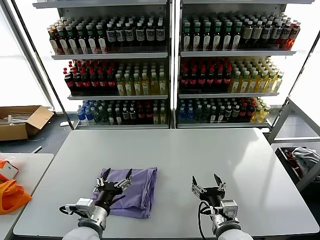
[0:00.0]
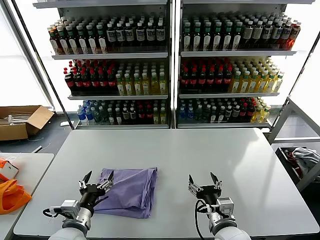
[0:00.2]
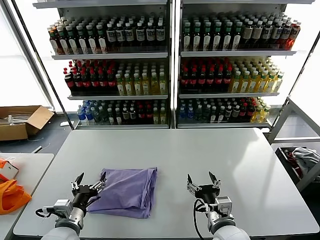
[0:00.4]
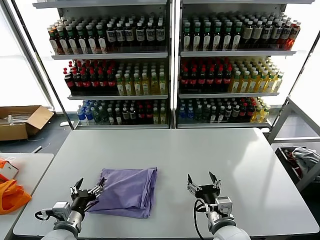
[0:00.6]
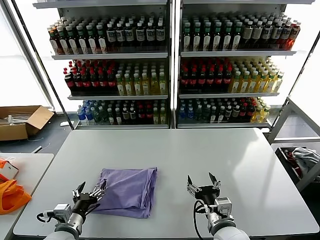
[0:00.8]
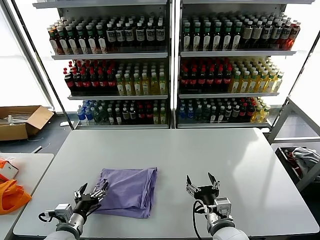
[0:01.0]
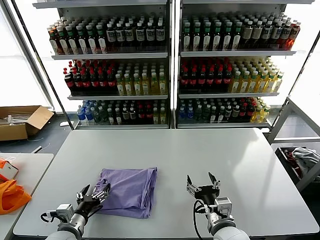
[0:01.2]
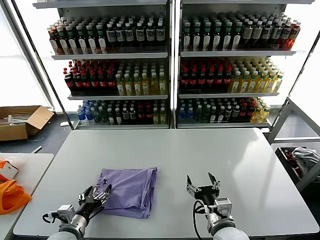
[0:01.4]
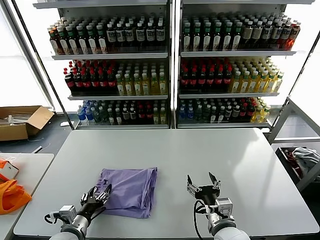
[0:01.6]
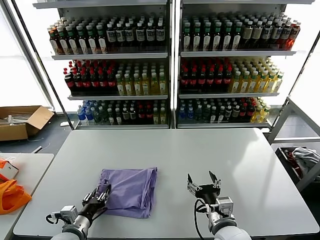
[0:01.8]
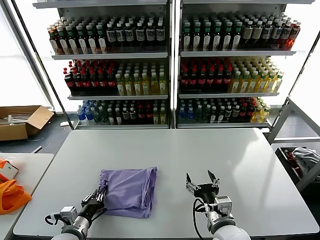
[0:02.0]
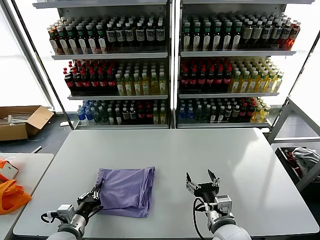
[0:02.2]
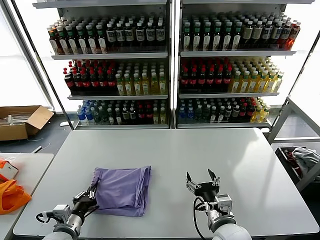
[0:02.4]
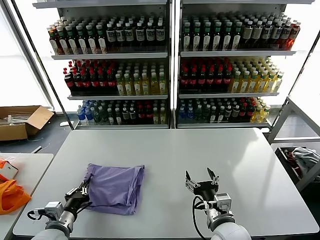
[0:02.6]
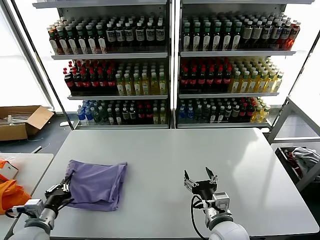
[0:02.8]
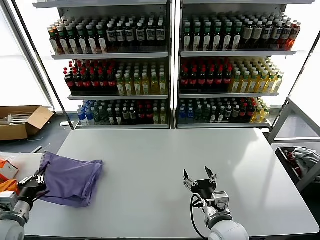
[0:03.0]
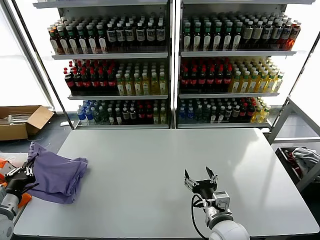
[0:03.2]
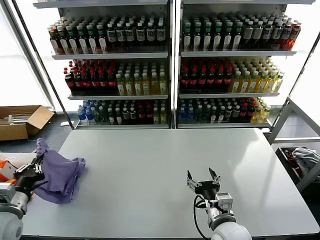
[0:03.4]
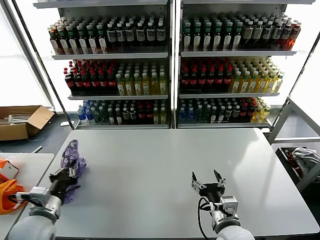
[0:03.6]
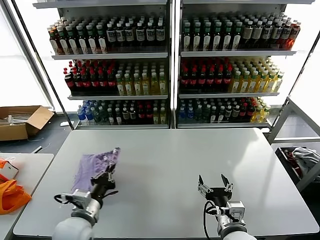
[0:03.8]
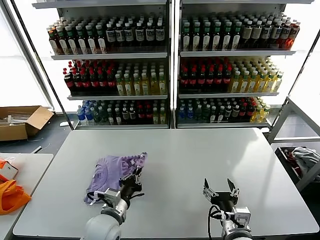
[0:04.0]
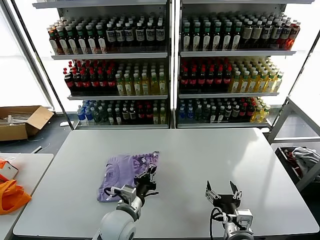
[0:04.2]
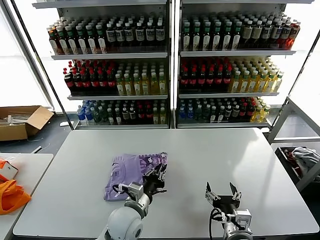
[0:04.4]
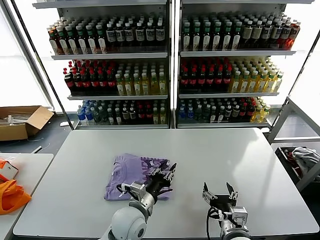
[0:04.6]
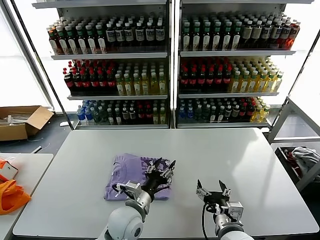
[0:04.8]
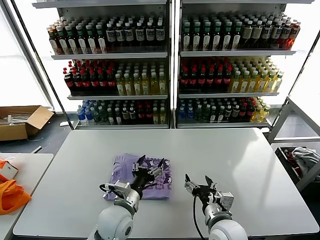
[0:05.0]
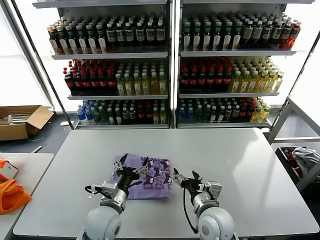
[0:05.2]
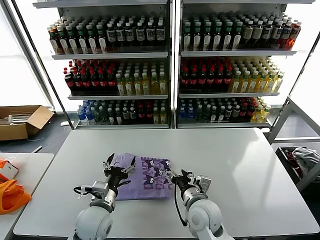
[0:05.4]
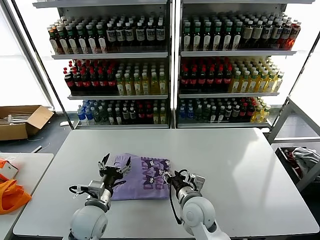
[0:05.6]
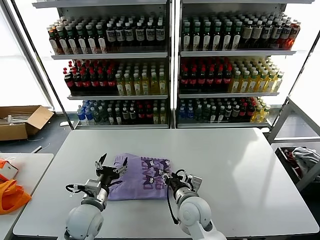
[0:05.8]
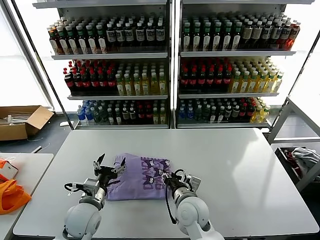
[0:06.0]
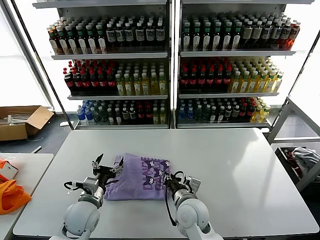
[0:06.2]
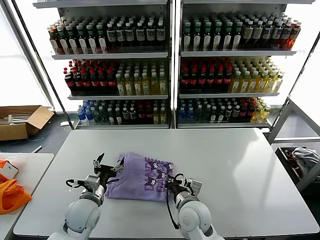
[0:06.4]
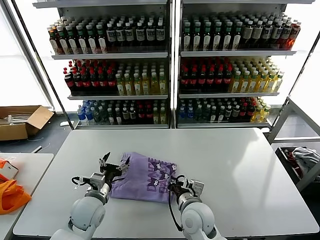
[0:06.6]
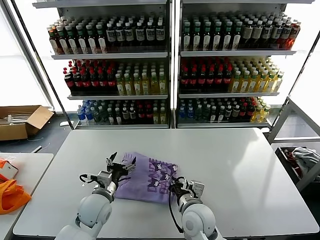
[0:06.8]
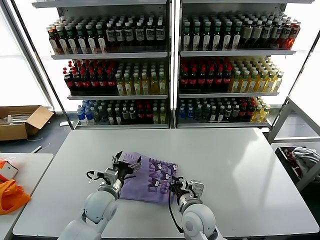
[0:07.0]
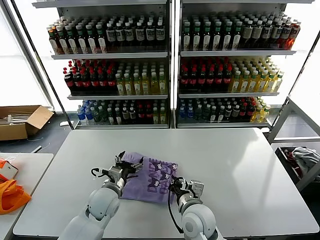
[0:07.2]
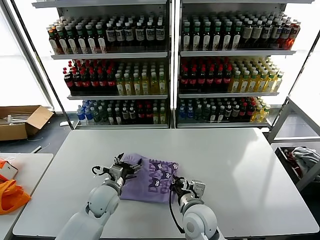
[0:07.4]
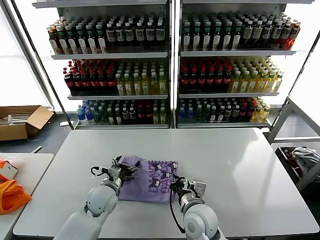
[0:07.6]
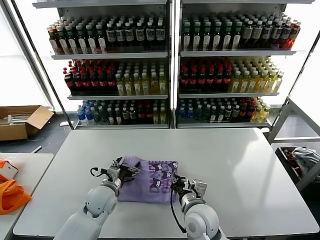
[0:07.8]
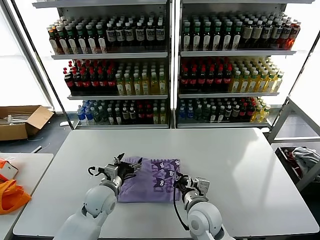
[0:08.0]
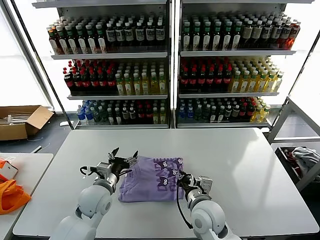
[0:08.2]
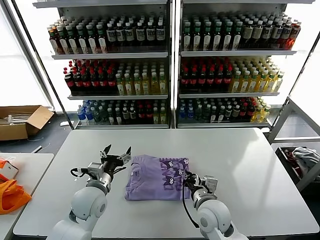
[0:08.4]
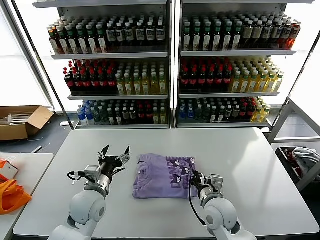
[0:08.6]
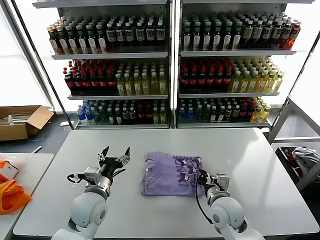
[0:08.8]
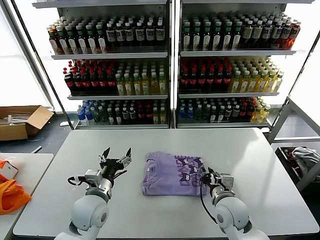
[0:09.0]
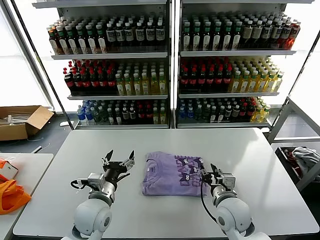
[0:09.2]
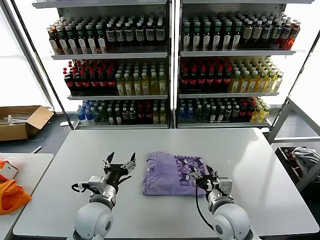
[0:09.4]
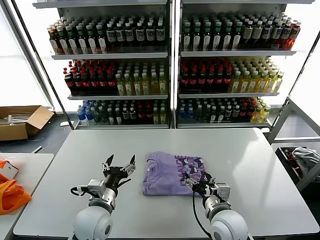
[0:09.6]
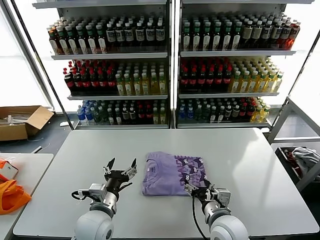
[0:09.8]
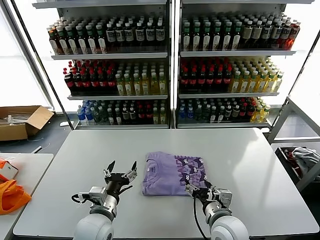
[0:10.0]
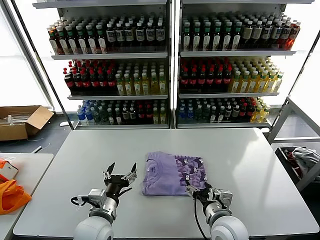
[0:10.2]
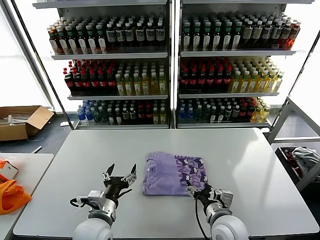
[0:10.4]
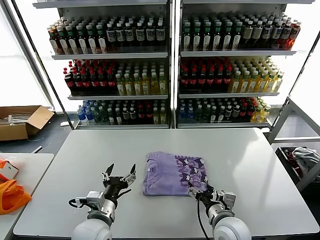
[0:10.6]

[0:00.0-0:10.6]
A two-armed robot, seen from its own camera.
Task of the whole recording: fold and organize the clothes.
Step, 0:00.0 to 0:04.4: Flip the folded clothes over with left gripper.
0:00.0 to 0:01.6: The left gripper heads to the left and downward, covering about 10 cm.
0:01.6 to 0:03.0: The left gripper goes roughly 15 cm to the left and upward, and closes its fingers.
0:03.0 to 0:04.6: The left gripper moves to the right, roughly 30 cm. Meanwhile the right gripper ends up some 5 cm from where it was.
0:04.6 to 0:06.0: The right gripper shifts about 15 cm forward and to the left, and closes up. The left gripper shifts roughly 15 cm to the left, and opens.
0:06.0 to 0:07.6: The right gripper closes; the left gripper shifts roughly 5 cm forward.
0:07.6 to 0:09.0: The right gripper is displaced to the right by about 10 cm; the left gripper is displaced upward and backward by some 10 cm.
0:09.0 to 0:10.6: Both grippers travel together backward, roughly 5 cm. The right gripper opens its fingers.

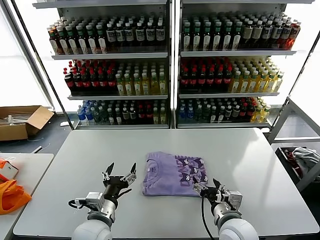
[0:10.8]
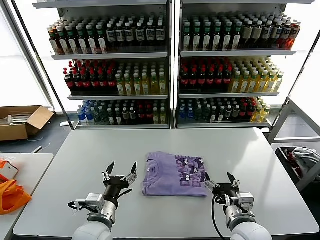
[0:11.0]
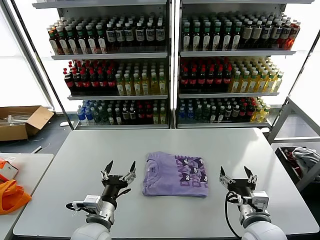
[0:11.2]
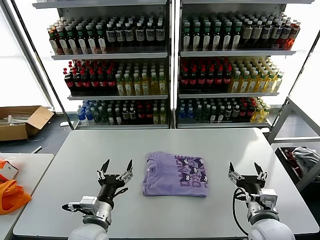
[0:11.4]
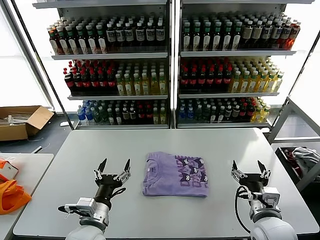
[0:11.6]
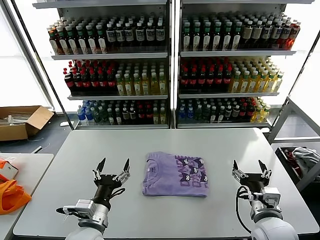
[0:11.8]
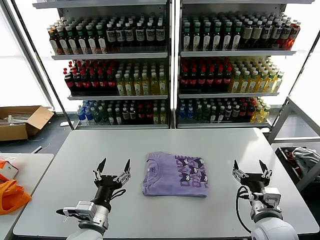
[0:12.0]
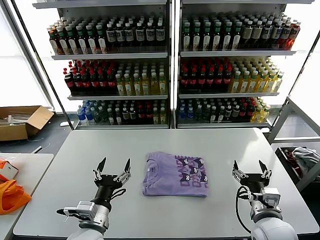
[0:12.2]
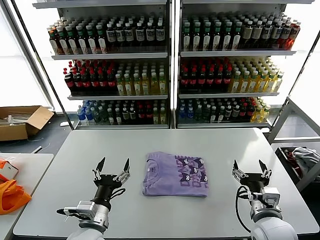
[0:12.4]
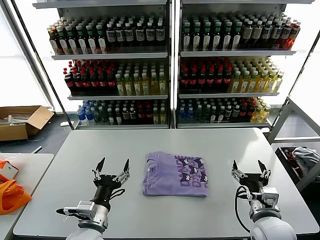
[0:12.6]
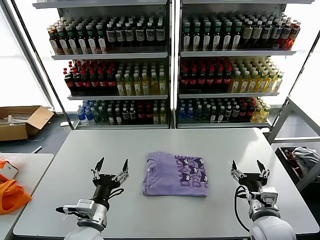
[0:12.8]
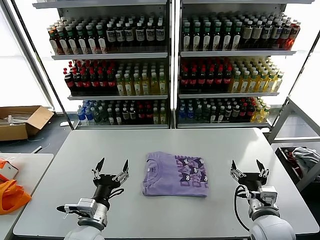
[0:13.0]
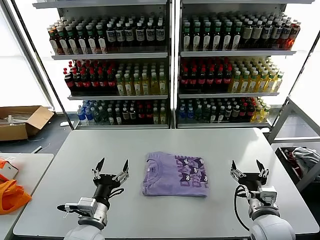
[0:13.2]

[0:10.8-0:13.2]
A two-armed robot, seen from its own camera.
Task of the whole recording: fold and organize the clothes.
0:10.8 to 0:12.0: The right gripper shifts some 10 cm to the right.
0:12.0 to 0:13.2: Both grippers stay about where they are.
